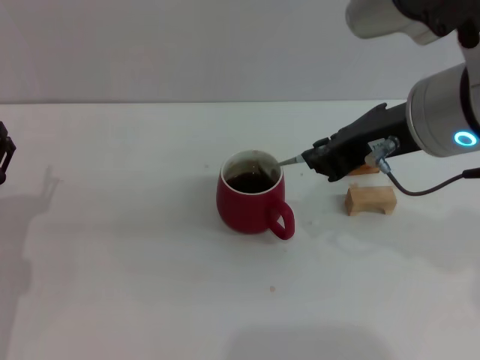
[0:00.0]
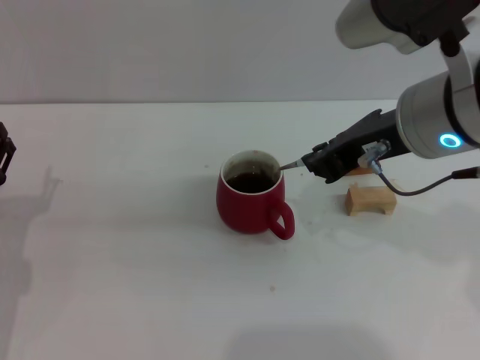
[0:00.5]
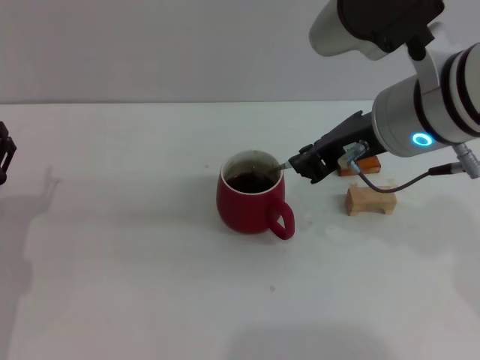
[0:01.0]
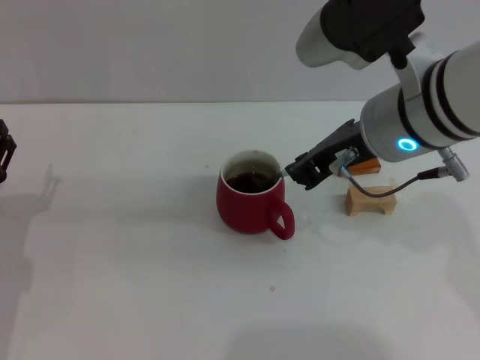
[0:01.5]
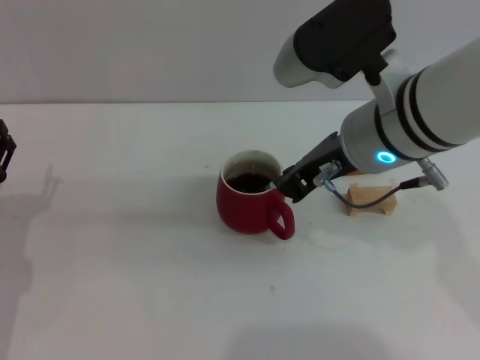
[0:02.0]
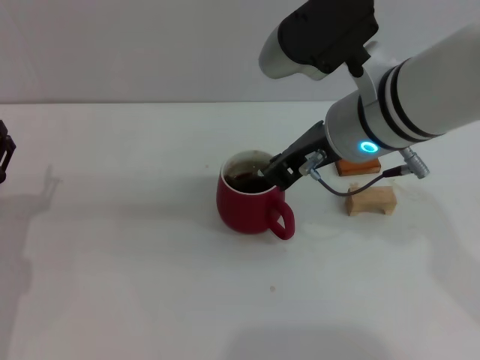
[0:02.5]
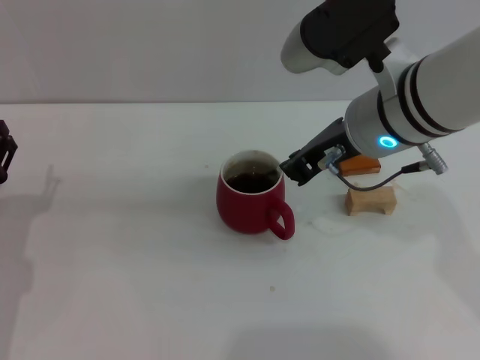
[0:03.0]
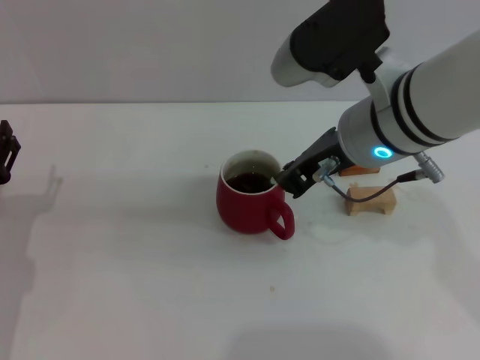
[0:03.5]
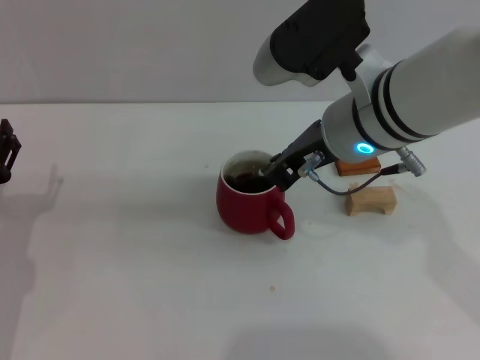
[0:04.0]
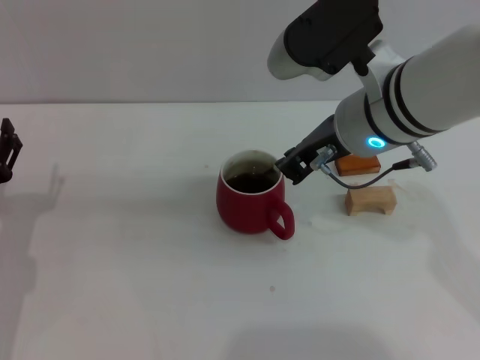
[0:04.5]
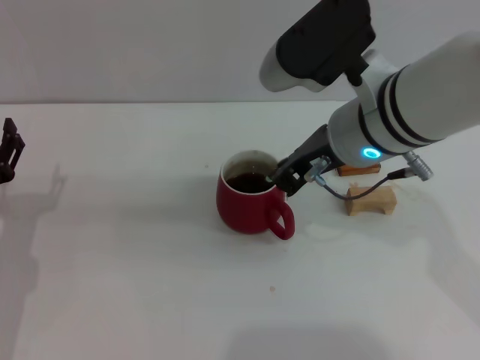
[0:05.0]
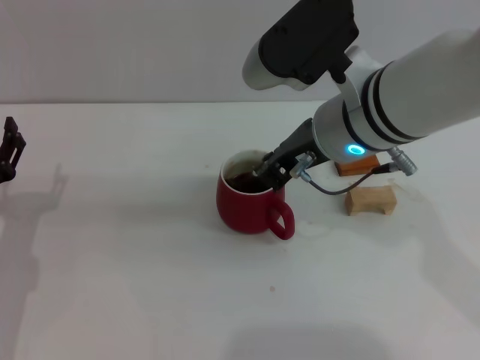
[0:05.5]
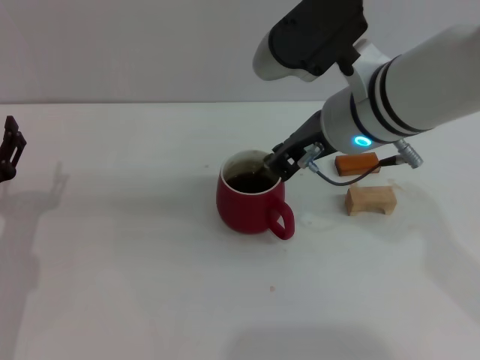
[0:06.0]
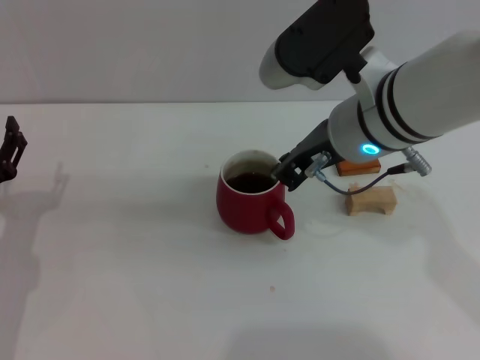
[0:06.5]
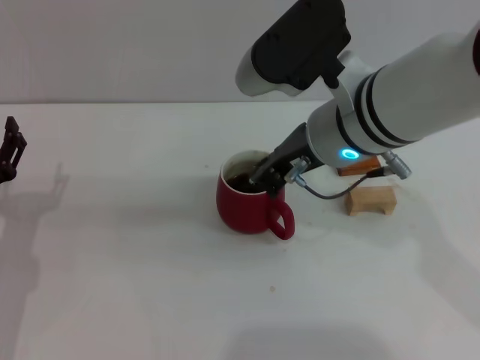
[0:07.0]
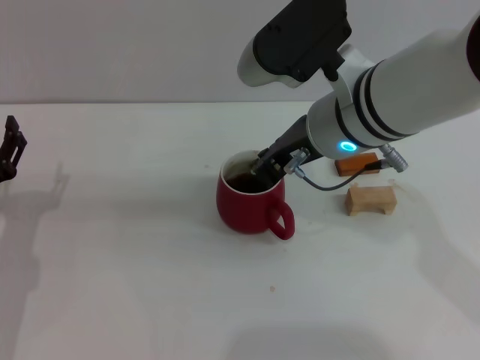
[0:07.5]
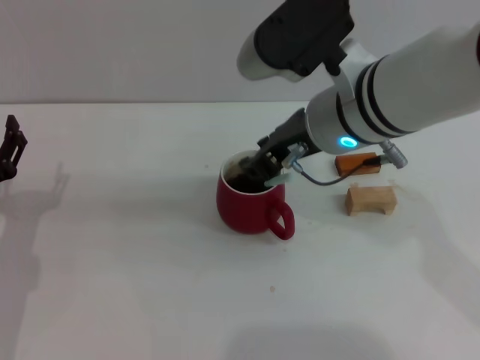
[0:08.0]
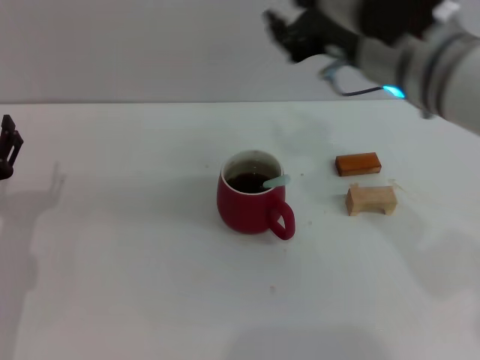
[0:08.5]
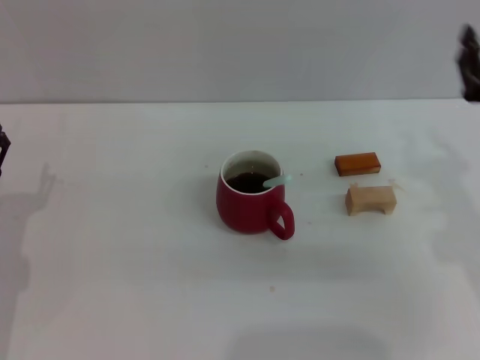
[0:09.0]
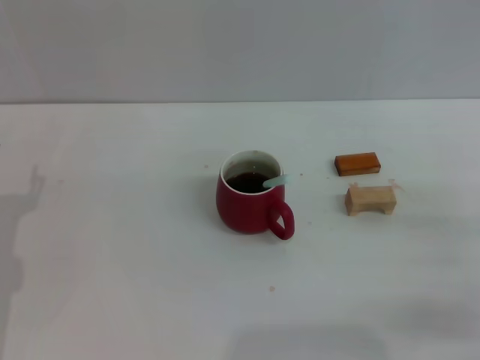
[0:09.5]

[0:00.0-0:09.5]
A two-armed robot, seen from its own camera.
Task of the whole recording: Move the red cup to the center, lift the blue spoon, stir it three times in the cup, and put the spoon into the cup.
Step, 0:00.0 to 0:08.0: Stir the coffee in the cup with the right gripper.
0:00.0 to 0:02.0: The right gripper ends up some 5 cm from where it was.
0:02.0 to 0:04.0: There are only small adjustments of the grippers.
0:04.0 to 0:05.5: Both grippers stay about where they are.
0:05.5 to 0:07.5: The grippers stay close to where they were, moving slightly.
0:07.5 to 0:09.5: The right gripper travels to the right, downward and backward by about 30 cm, and opens.
